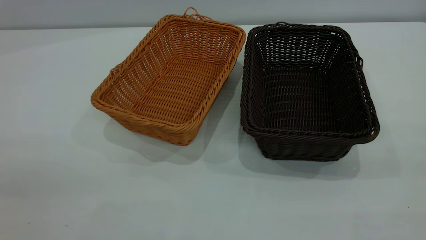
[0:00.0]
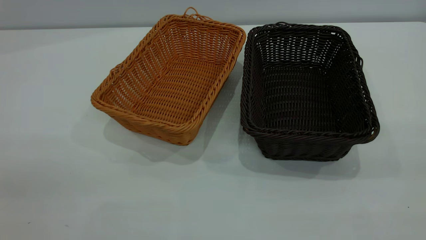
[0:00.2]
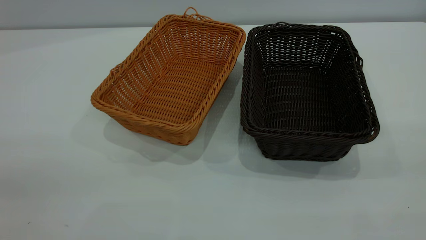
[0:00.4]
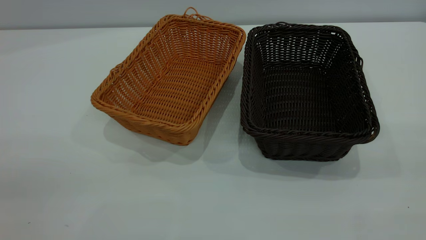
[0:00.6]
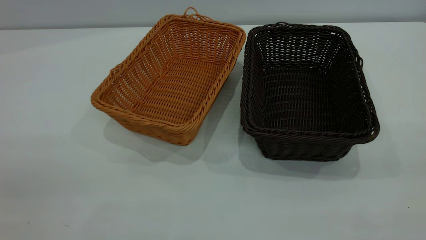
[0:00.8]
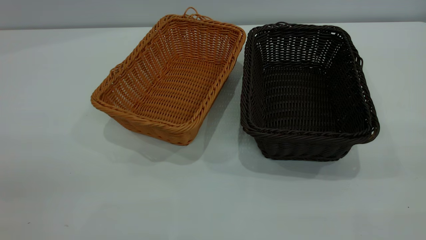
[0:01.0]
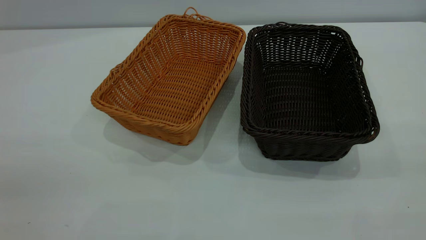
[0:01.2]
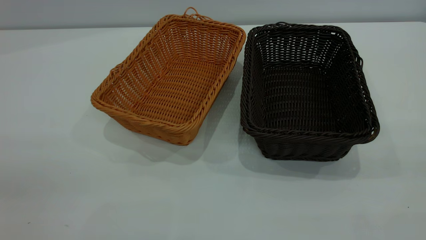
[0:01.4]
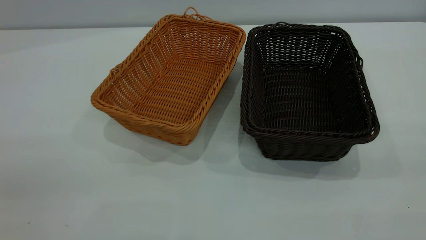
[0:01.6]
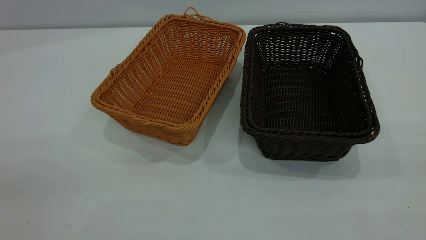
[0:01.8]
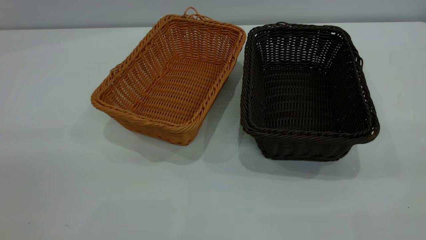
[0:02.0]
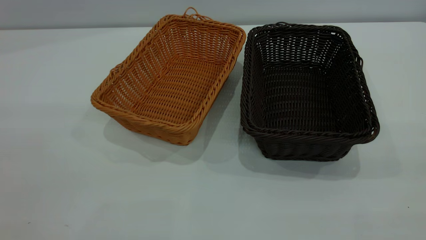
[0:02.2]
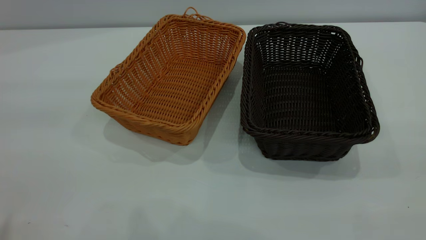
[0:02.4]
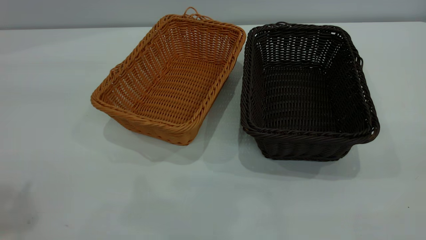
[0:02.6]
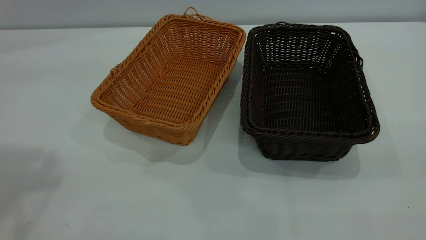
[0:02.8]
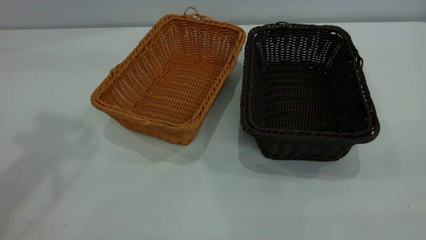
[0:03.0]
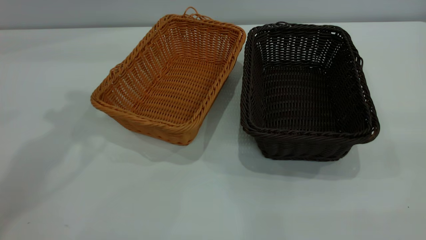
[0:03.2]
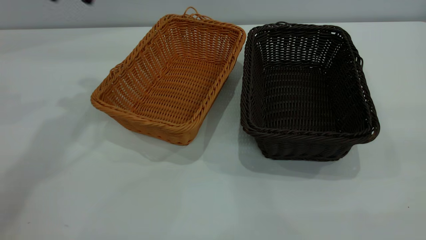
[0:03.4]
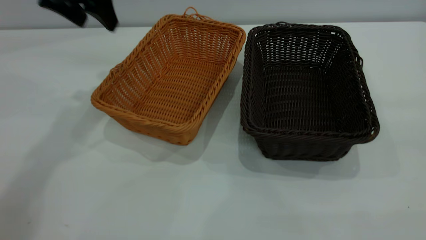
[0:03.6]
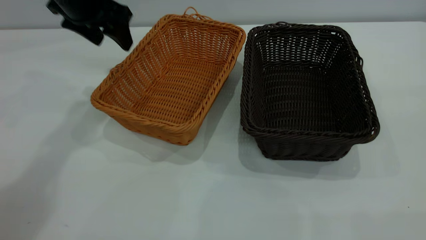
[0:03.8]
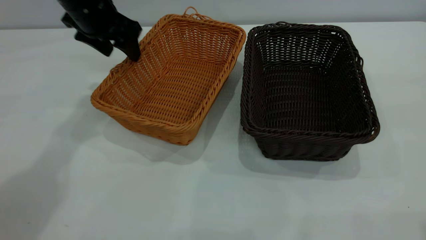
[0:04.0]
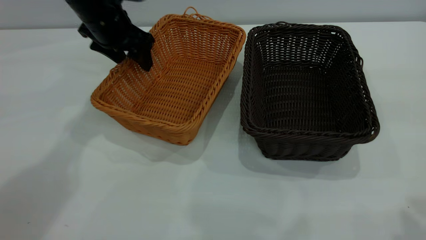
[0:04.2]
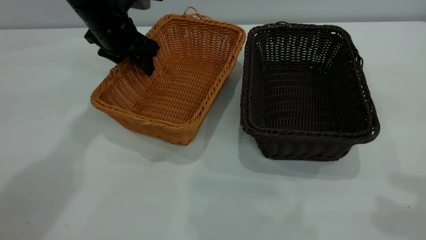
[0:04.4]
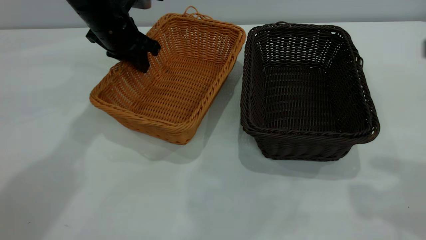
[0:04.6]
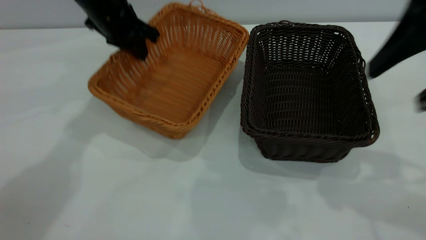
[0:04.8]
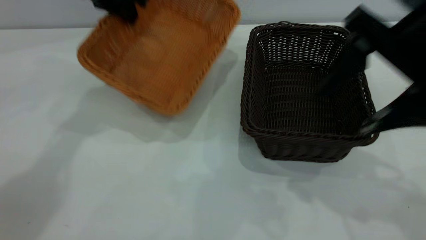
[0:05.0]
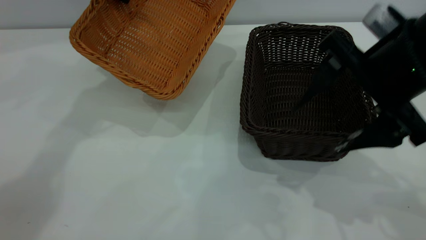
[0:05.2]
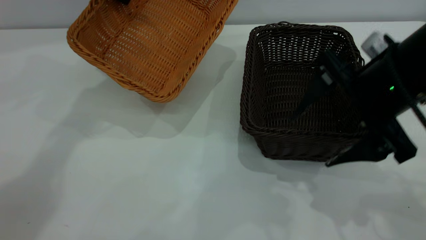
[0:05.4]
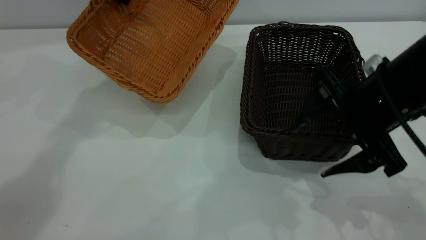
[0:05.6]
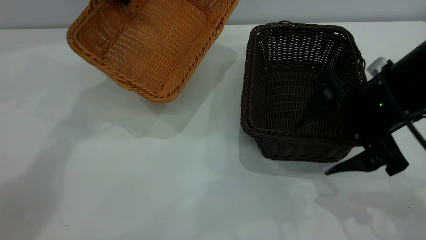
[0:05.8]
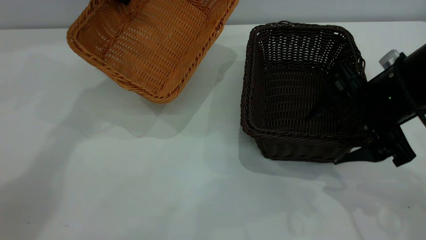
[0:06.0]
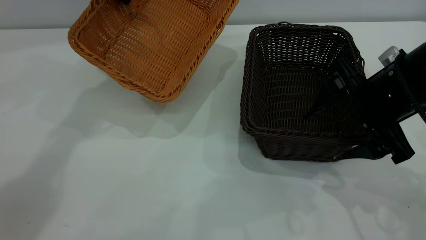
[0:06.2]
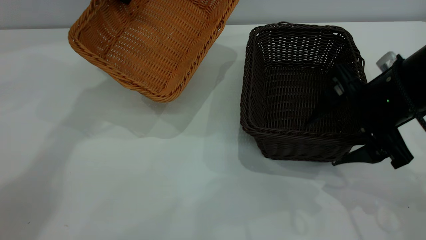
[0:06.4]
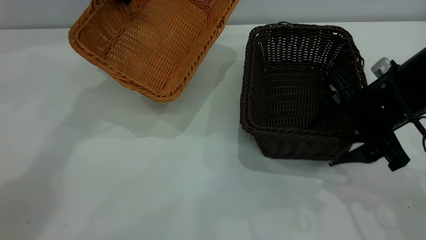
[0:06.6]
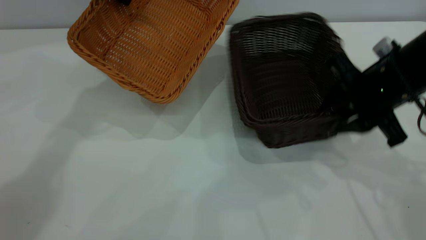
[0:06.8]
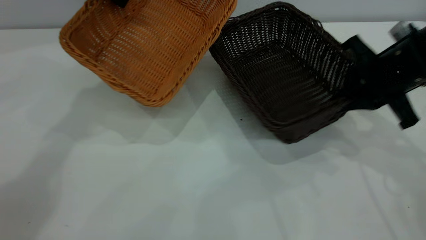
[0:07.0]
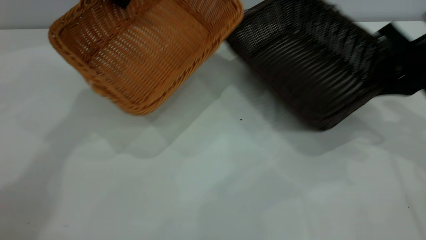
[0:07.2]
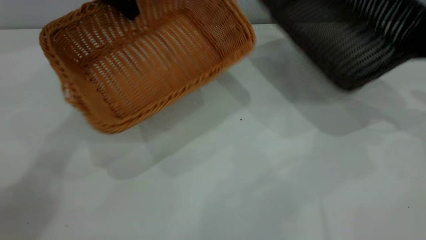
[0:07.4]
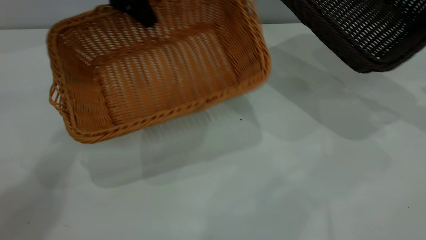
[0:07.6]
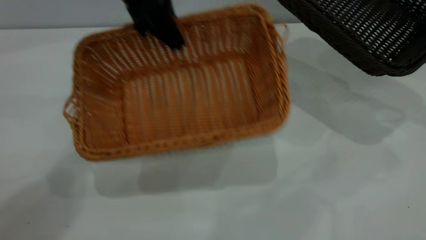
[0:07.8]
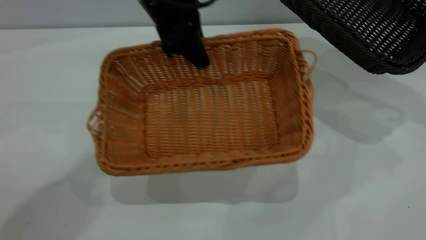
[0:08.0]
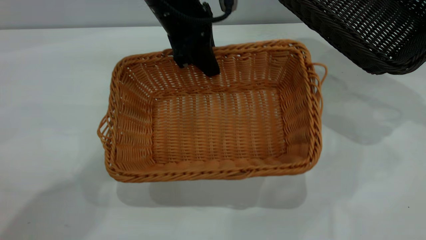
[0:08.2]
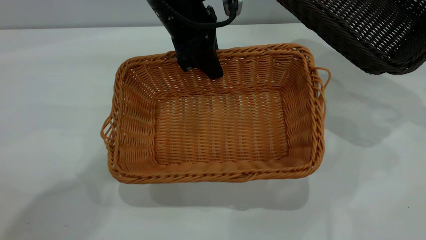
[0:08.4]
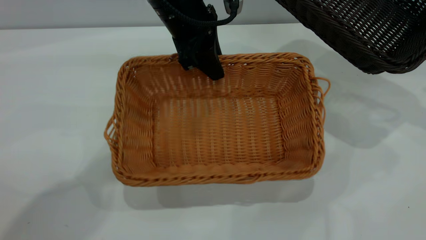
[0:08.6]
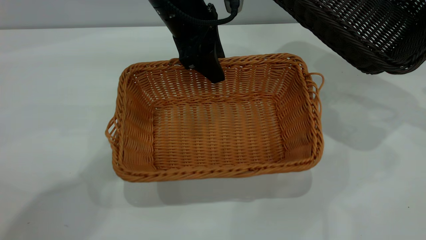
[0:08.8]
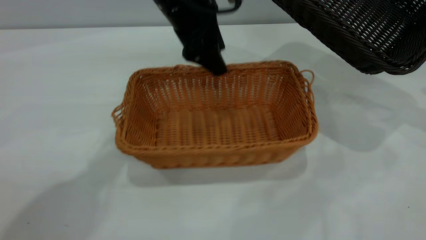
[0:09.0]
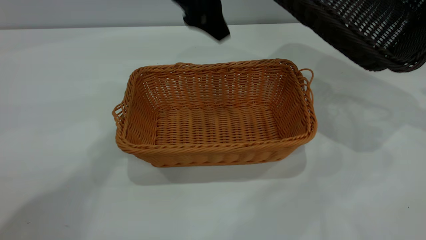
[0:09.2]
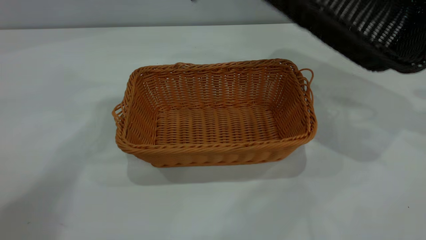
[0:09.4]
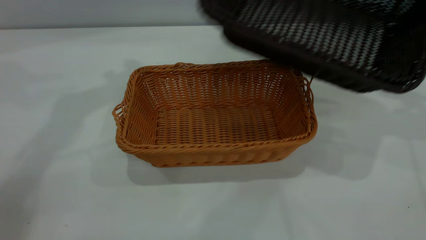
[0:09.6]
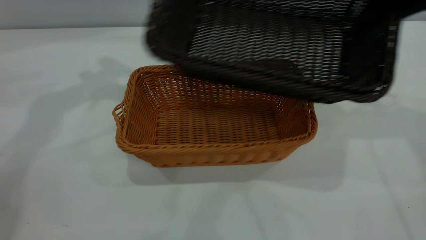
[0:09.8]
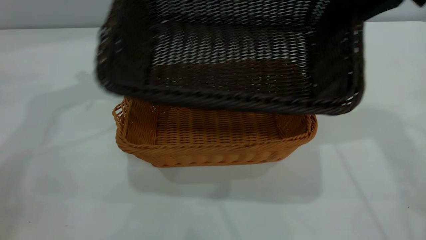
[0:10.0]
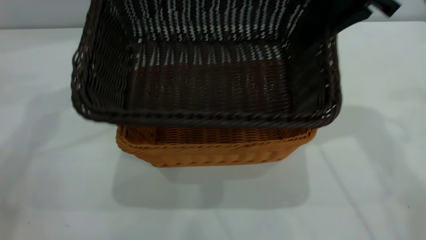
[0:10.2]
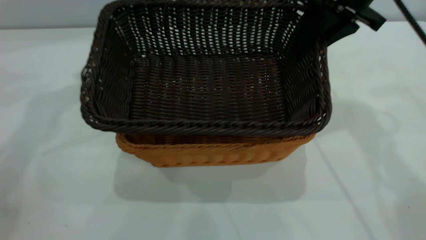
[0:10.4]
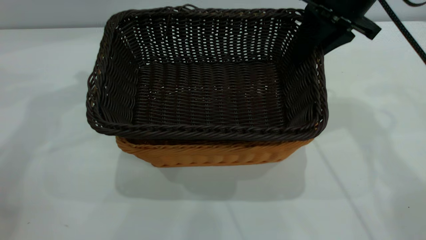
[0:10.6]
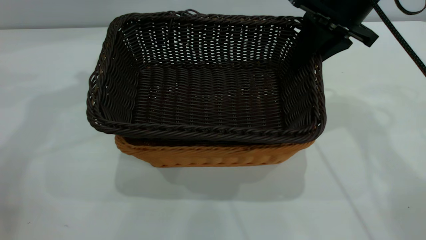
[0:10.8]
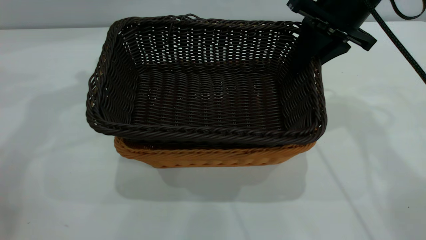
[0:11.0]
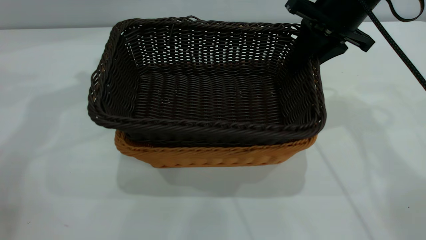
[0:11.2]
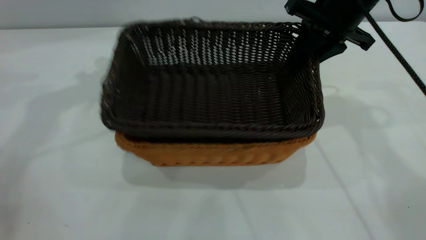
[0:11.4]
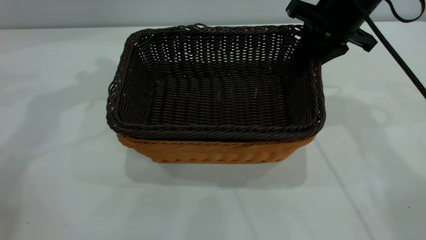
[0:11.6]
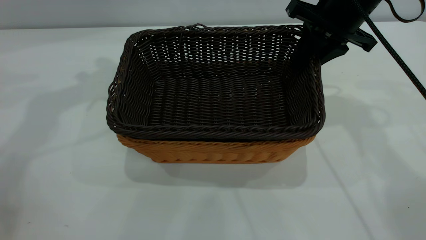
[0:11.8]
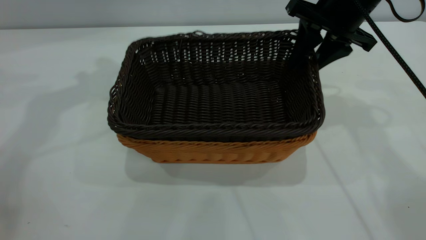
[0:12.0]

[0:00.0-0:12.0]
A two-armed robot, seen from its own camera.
Task of the whole recording: the left gripper grasp the brown basket and place it in the center of the table, the right gripper grasp the black basket and place it inside the brown one.
Step, 0:00.0 to 0:05.0: Pick up the light basket with the right gripper.
Step, 0:05.2 to 0:09.0: Place the light-colored basket in the center.
0:00.0 to 0:01.6: Neither gripper changes place.
0:03.0 to 0:04.4: The left gripper heads downward and forward, covering approximately 30 cm. Meanwhile the right gripper goes roughly 15 cm forward.
0:04.4 to 0:06.0: The left gripper goes about 10 cm upward, and closes up. The right gripper travels downward and forward by roughly 20 cm.
0:06.0 to 0:07.6: The right gripper heads to the right and forward, covering approximately 20 cm, and closes up, while the left gripper ends up about 5 cm from where it was.
0:07.6 to 0:09.0: The left gripper shifts roughly 10 cm to the right, and opens up.
0:09.0 to 0:10.4: The right gripper travels to the left by approximately 20 cm, while the left gripper moves to the left and upward, roughly 20 cm.
0:10.4 to 0:12.0: The right gripper opens its fingers.

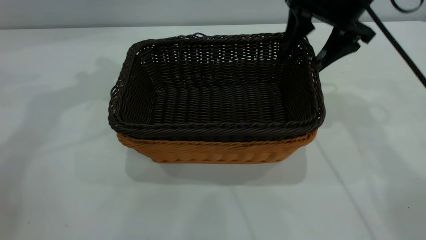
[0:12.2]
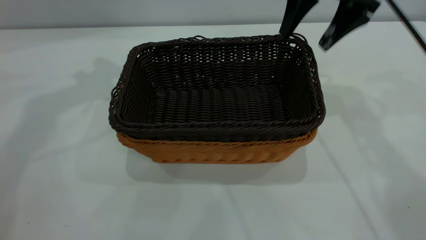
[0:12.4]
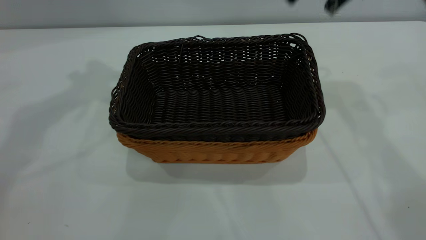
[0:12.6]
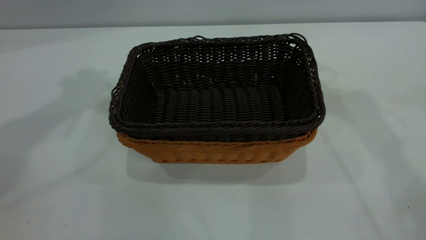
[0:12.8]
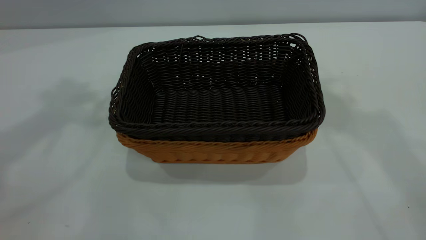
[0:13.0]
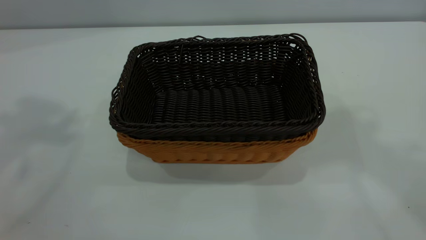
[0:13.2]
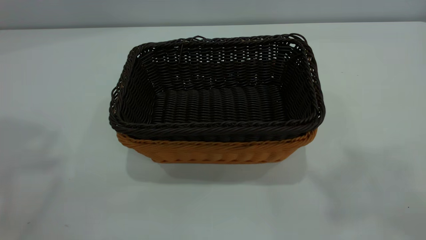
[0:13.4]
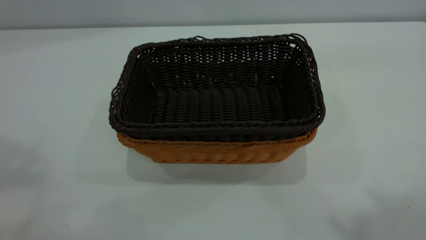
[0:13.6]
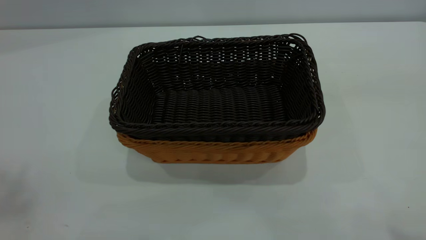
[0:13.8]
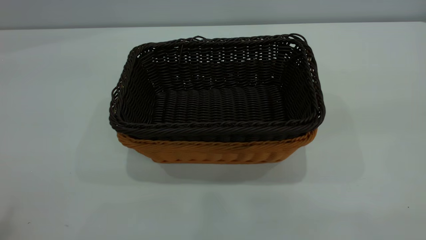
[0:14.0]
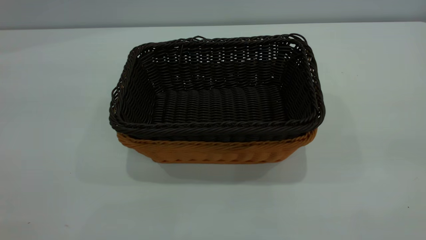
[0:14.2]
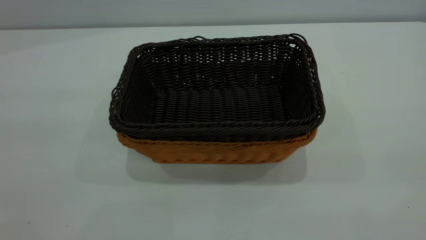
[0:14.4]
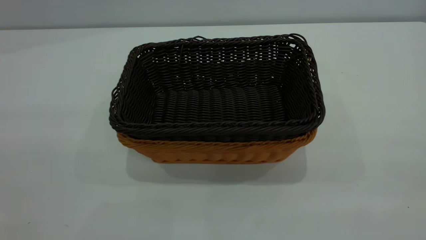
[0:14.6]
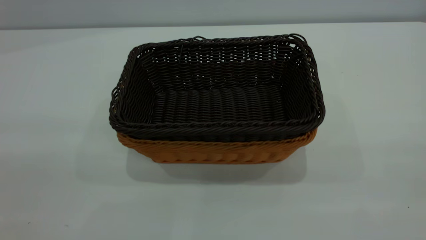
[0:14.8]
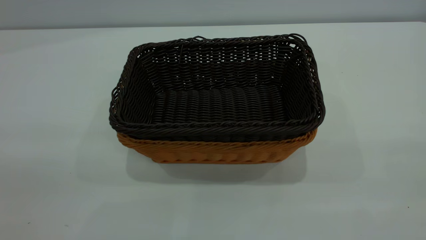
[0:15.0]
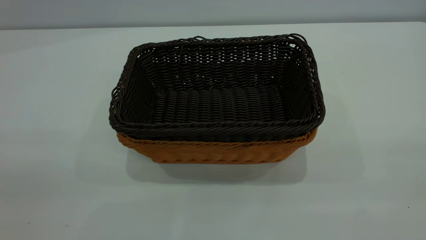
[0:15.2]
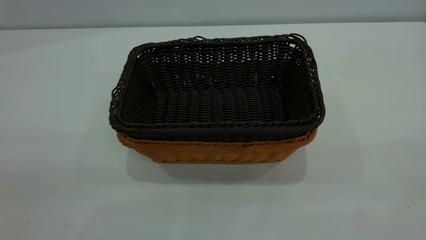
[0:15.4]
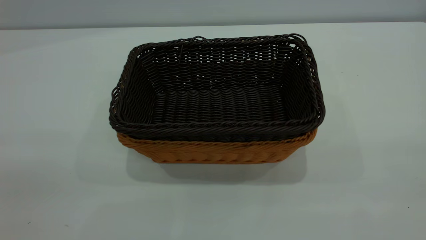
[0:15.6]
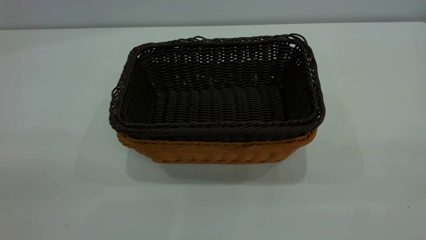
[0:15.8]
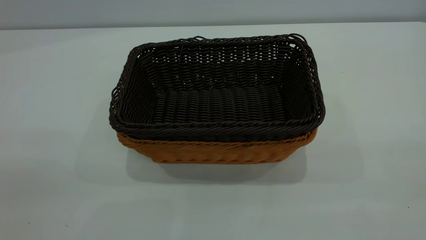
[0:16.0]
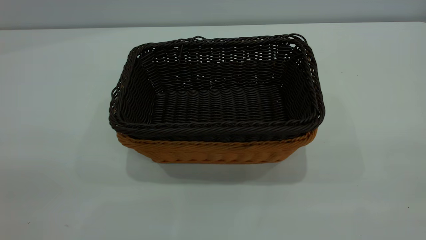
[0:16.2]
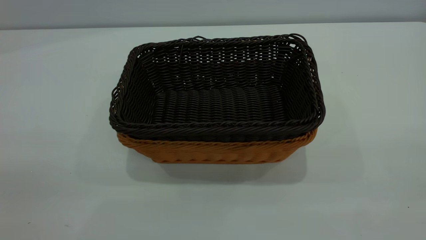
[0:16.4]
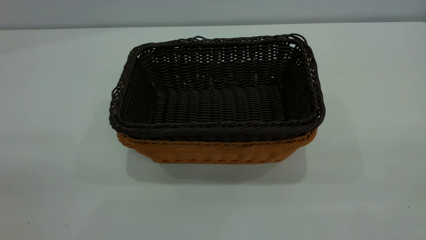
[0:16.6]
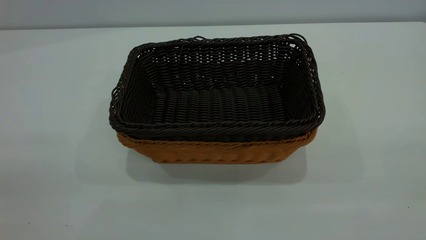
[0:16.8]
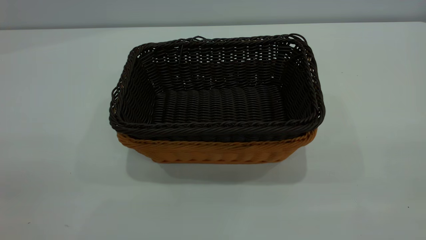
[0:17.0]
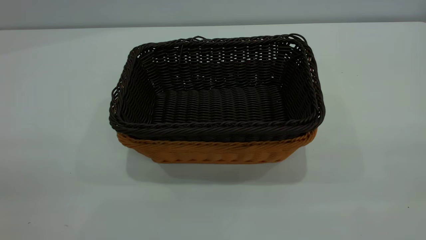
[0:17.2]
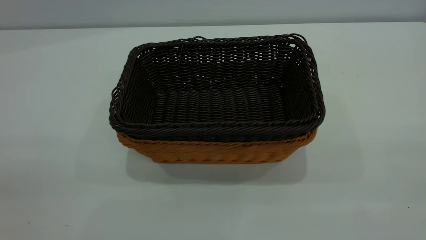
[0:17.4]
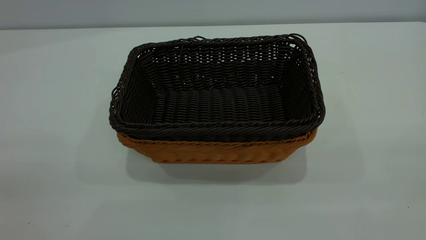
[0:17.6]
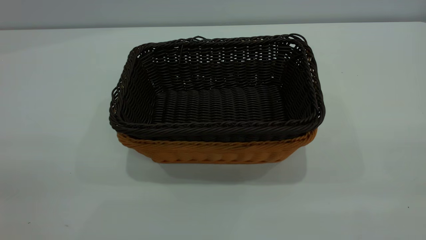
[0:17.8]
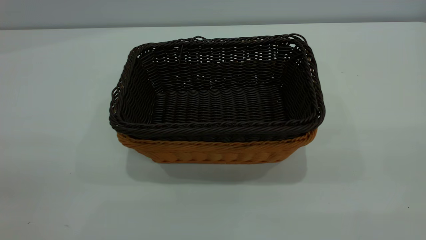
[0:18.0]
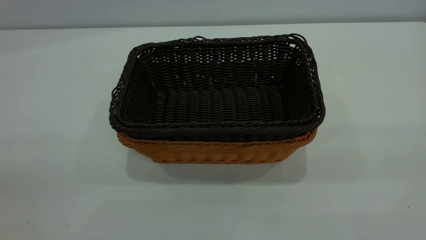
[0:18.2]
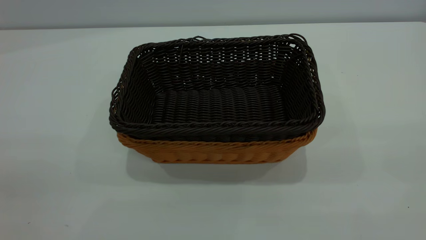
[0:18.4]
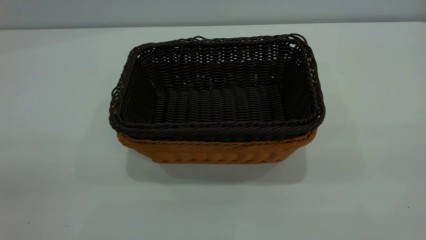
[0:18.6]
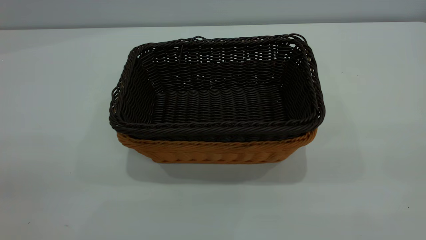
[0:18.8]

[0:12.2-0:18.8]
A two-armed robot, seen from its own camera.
Task of the whole recording: the left gripper grasp the brown basket and place it in the center of the table, the right gripper grasp the black basket and place it inside the brown one.
0:12.2 to 0:13.8: Both grippers move backward and upward, roughly 40 cm.
